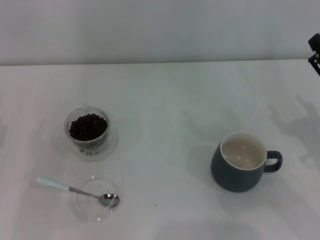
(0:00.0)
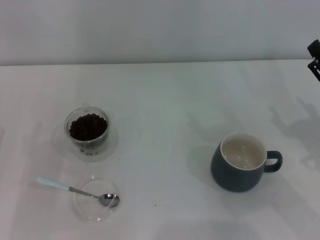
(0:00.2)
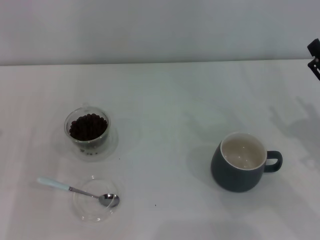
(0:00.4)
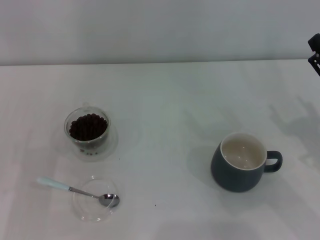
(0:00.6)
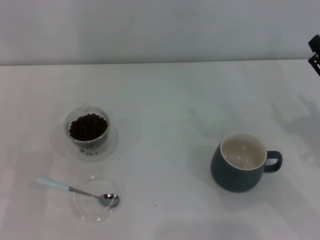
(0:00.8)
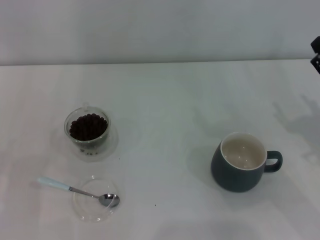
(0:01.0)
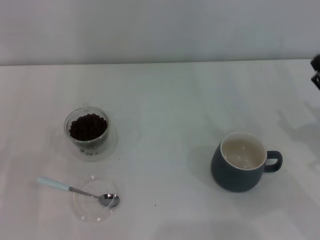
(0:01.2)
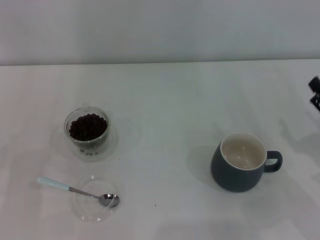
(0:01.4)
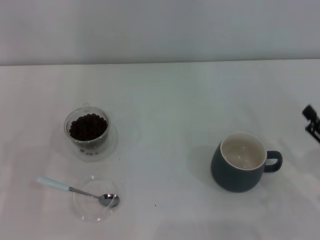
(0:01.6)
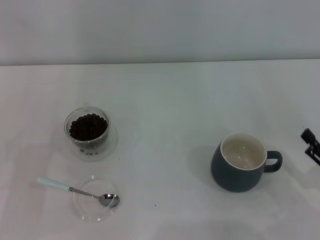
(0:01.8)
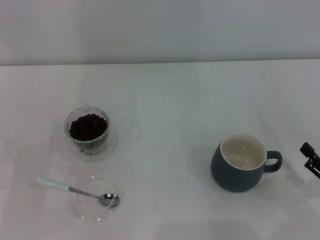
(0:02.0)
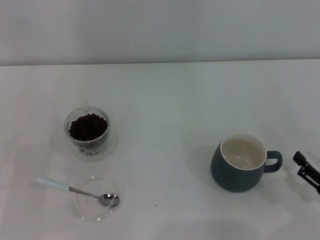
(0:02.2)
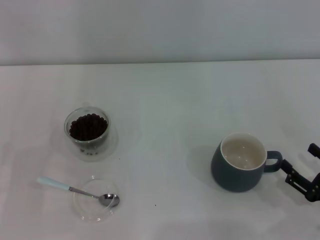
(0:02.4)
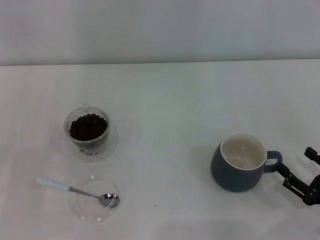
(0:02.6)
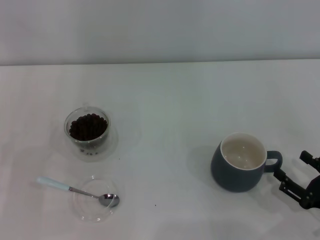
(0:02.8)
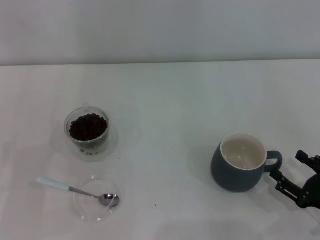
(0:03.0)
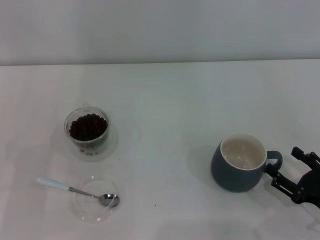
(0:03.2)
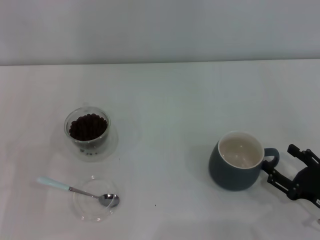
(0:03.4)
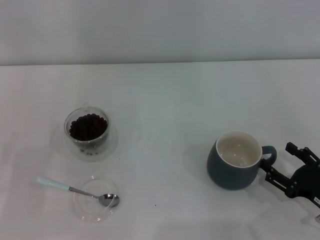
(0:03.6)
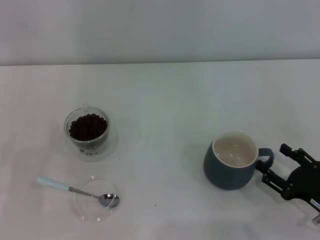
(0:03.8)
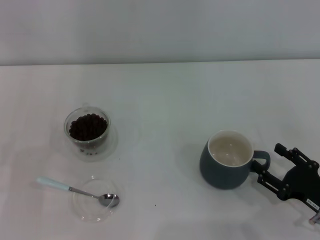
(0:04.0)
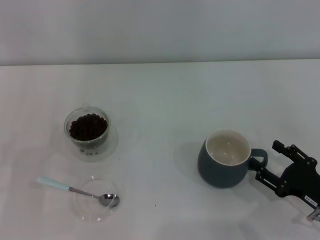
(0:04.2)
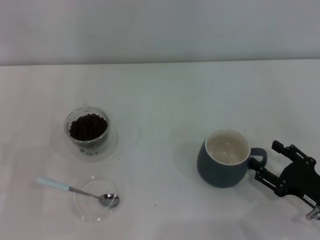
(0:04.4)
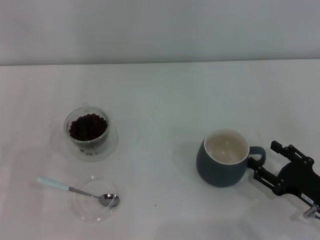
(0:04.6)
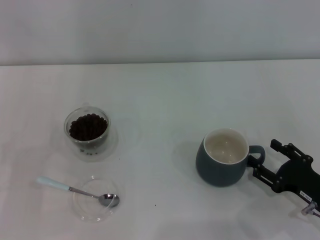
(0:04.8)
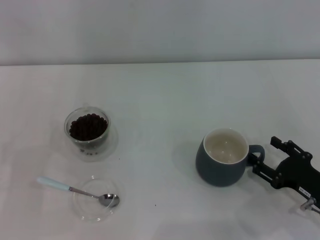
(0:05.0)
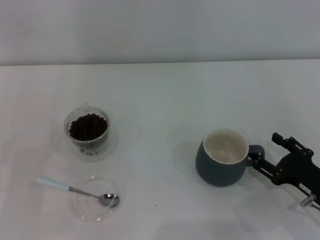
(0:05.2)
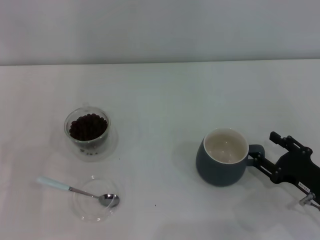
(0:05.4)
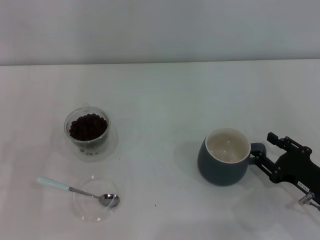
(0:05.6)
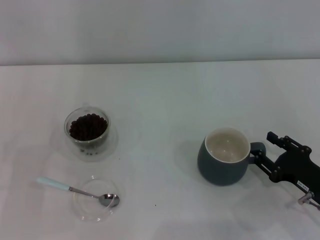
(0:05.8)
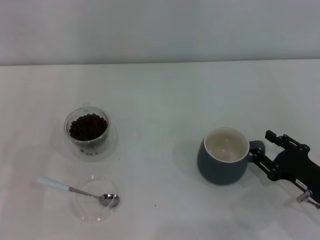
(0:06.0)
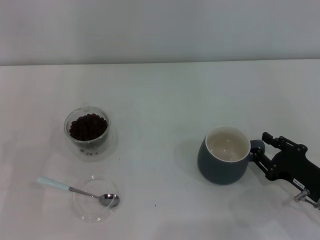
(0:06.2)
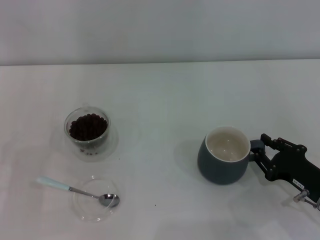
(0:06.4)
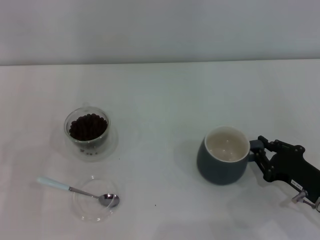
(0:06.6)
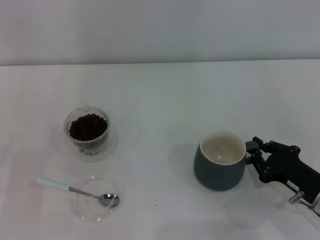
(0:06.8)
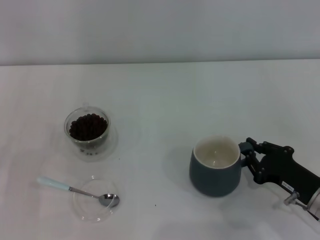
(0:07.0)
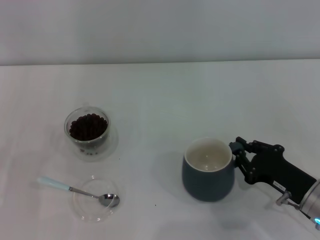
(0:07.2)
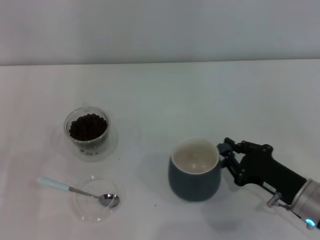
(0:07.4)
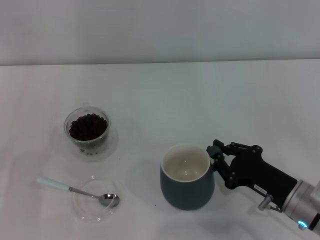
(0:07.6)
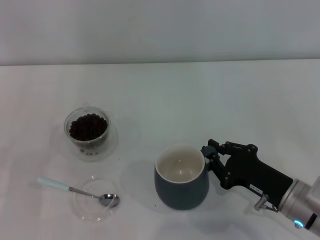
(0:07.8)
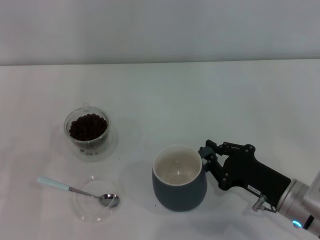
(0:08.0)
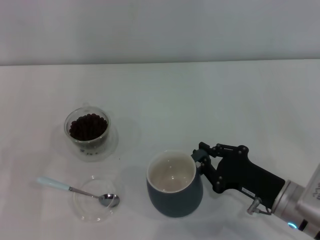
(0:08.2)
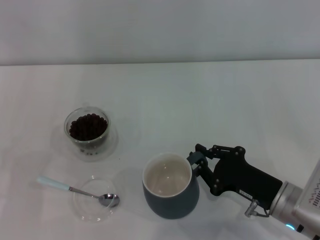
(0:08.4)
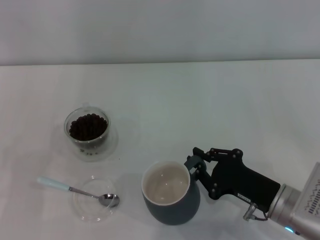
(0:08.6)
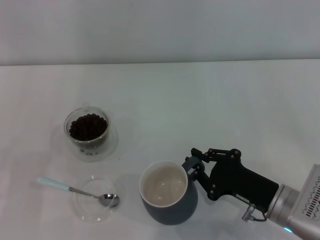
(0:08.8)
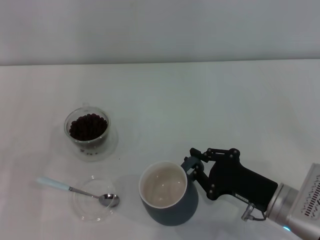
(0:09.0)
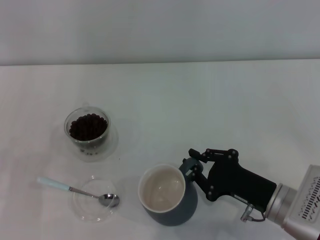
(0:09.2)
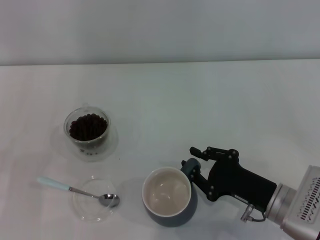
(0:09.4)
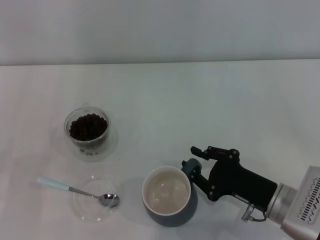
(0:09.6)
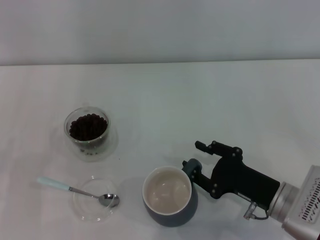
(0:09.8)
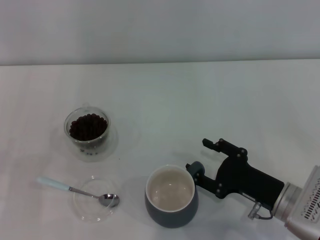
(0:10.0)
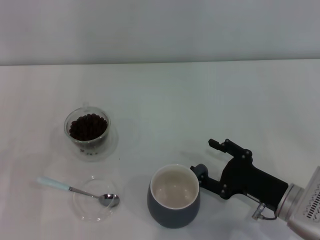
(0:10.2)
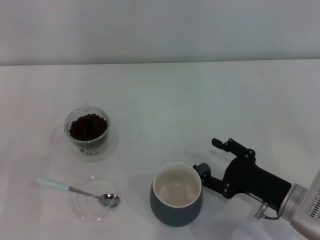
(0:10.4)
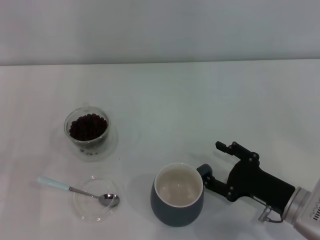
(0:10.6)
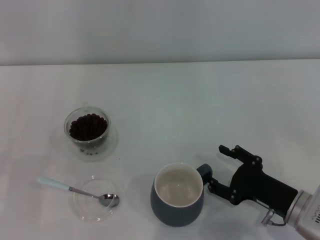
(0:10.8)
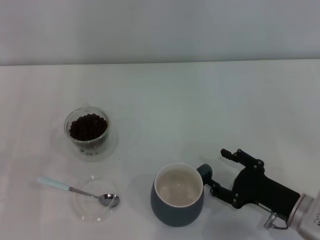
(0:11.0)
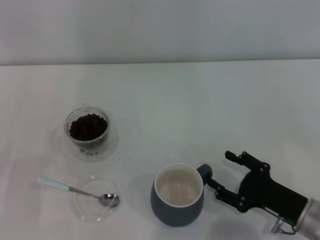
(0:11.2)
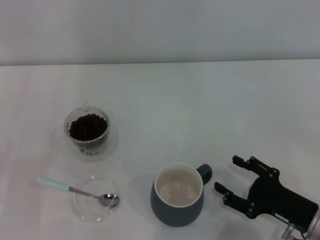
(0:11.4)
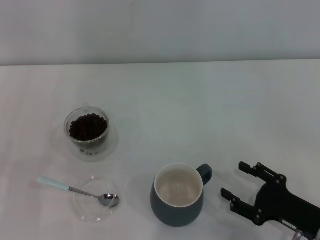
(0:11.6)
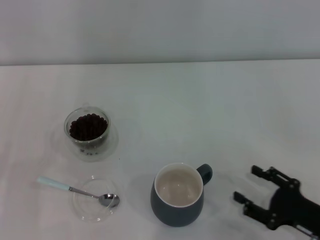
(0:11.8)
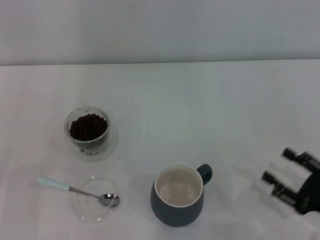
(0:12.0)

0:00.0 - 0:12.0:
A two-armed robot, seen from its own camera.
Task of the whole recording: Use a blue spoon to take out the coffee beans from the glass and pour them into the gray cup.
Step, 0:00.0 - 0:11.4: Move the cup to the center of view with the left gripper.
0:00.0 - 0:01.6: The right gripper moves backward, roughly 5 cm.
0:01.6 - 0:03.0: The right gripper changes place by roughly 5 cm.
0:03.0 - 0:06.0: There are only small adjustments of the grippers.
0:06.0 - 0:07.6: The right gripper moves to the left, some 5 cm, and closes its fingers.
0:07.6 - 0:09.0: The grippers move only a little.
0:09.0 - 0:10.4: The right gripper opens up.
0:10.4 - 0:12.0: The right gripper travels to the right and backward by roughly 10 cm.

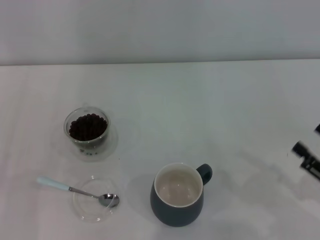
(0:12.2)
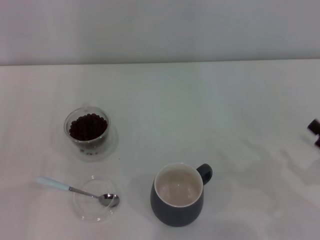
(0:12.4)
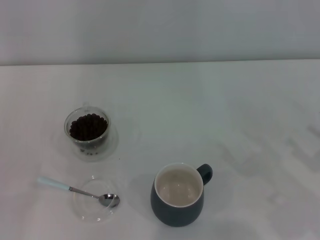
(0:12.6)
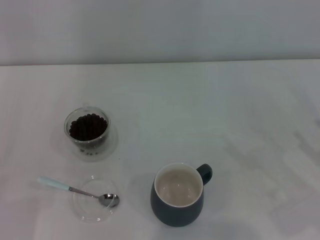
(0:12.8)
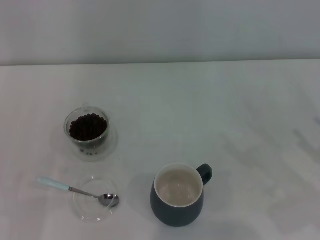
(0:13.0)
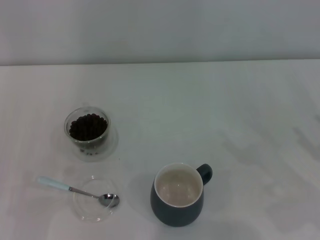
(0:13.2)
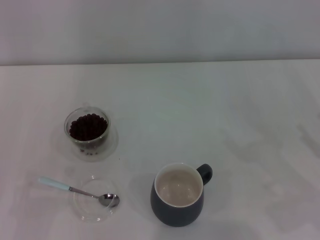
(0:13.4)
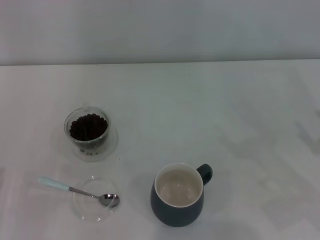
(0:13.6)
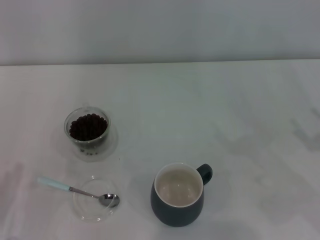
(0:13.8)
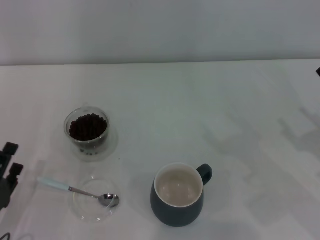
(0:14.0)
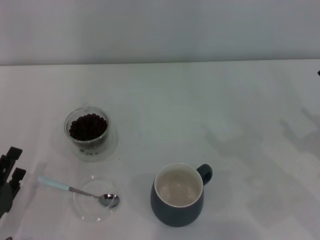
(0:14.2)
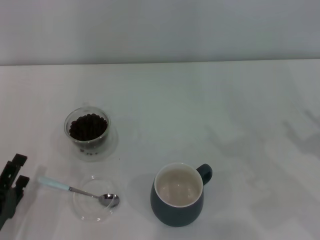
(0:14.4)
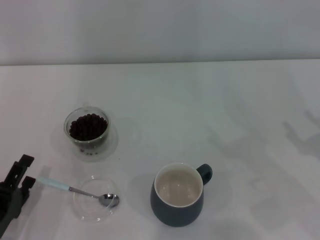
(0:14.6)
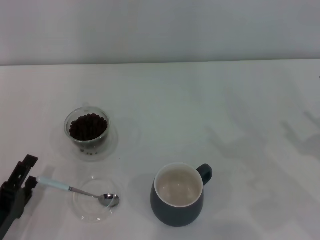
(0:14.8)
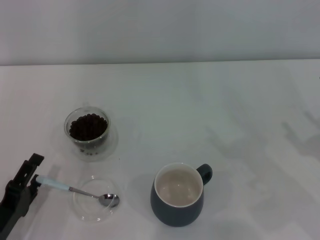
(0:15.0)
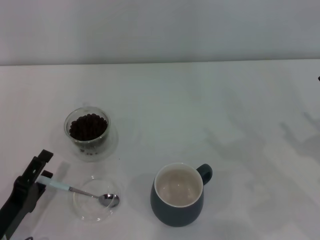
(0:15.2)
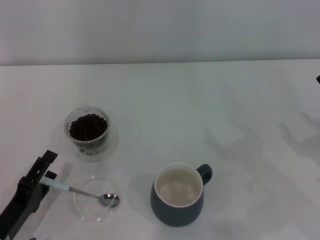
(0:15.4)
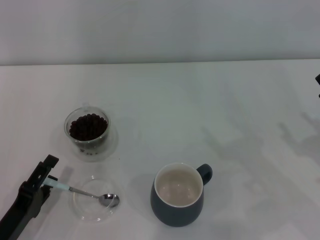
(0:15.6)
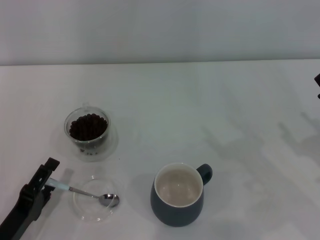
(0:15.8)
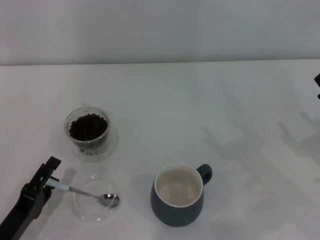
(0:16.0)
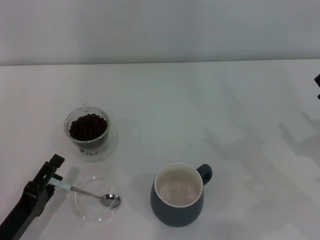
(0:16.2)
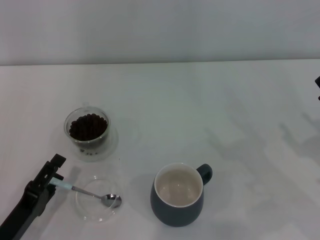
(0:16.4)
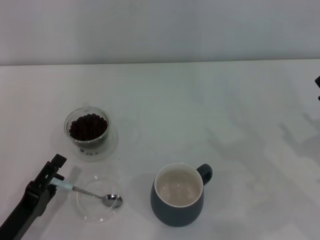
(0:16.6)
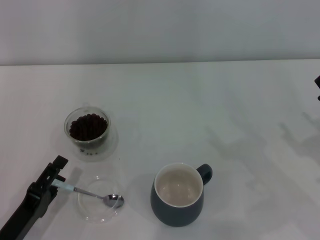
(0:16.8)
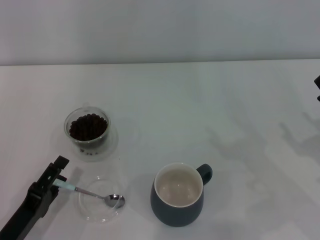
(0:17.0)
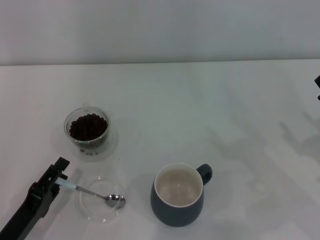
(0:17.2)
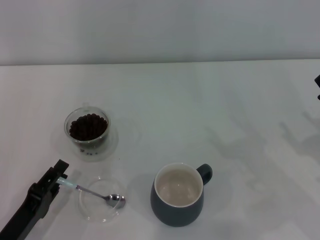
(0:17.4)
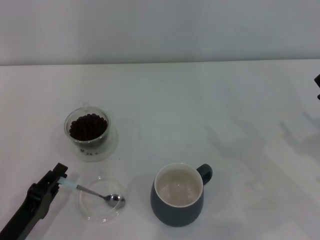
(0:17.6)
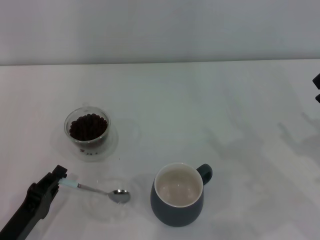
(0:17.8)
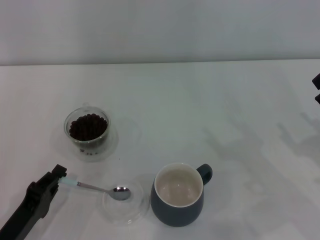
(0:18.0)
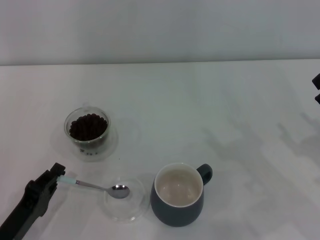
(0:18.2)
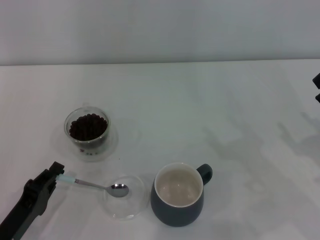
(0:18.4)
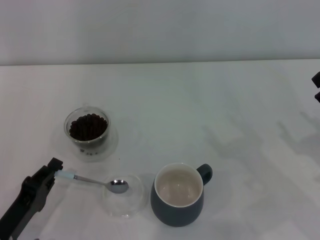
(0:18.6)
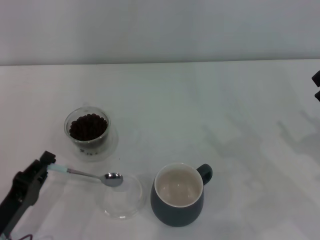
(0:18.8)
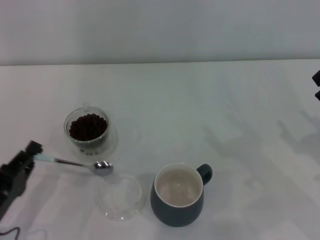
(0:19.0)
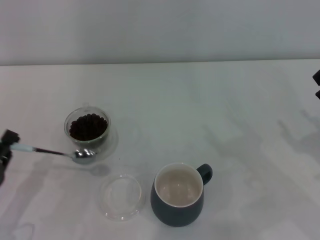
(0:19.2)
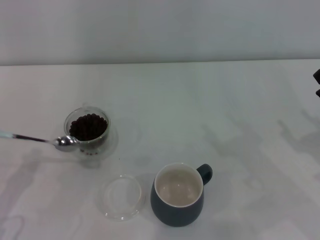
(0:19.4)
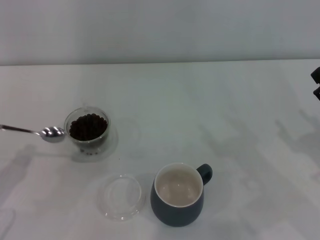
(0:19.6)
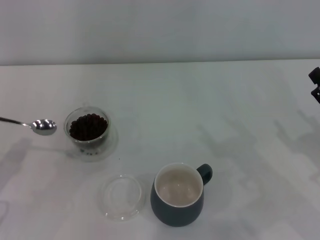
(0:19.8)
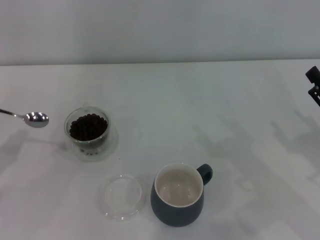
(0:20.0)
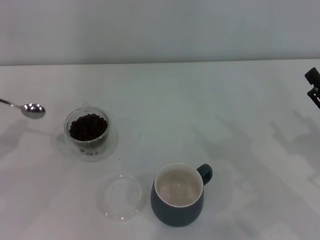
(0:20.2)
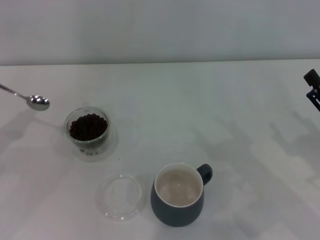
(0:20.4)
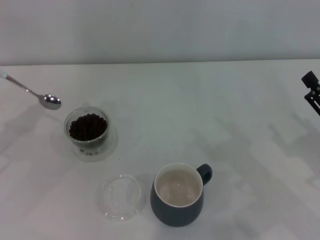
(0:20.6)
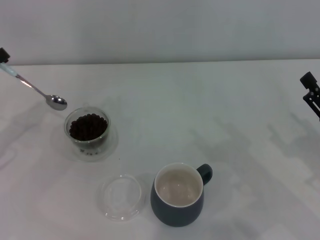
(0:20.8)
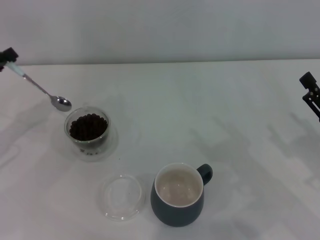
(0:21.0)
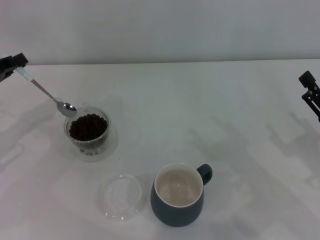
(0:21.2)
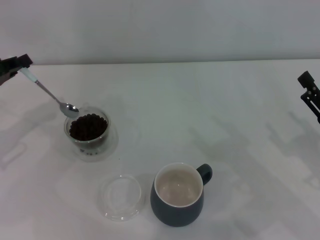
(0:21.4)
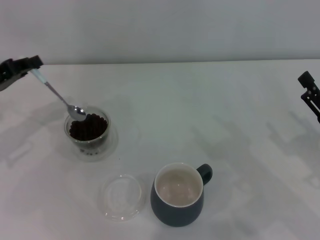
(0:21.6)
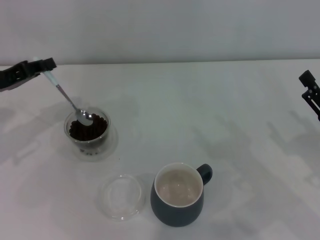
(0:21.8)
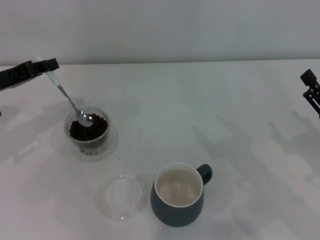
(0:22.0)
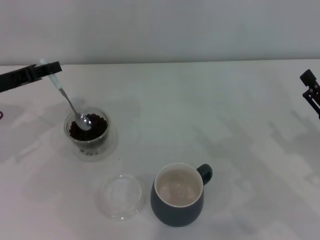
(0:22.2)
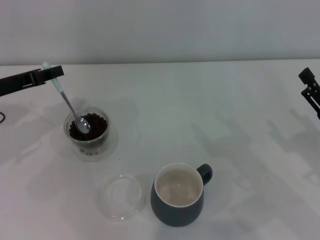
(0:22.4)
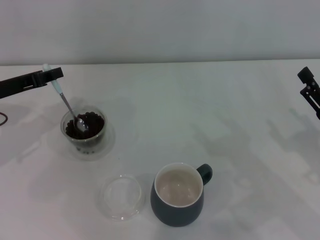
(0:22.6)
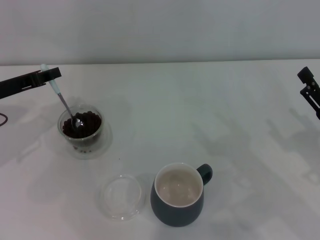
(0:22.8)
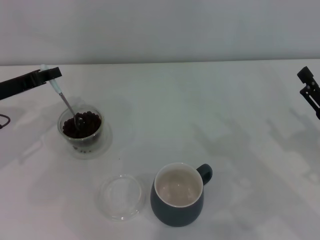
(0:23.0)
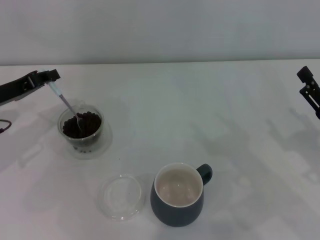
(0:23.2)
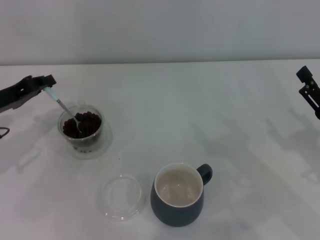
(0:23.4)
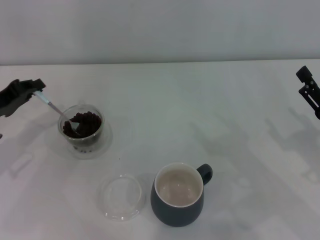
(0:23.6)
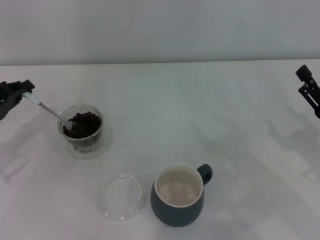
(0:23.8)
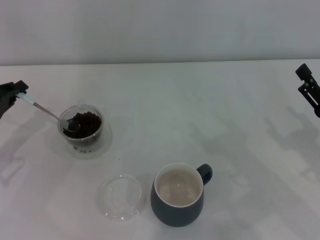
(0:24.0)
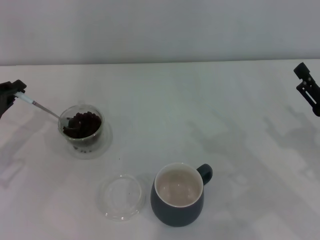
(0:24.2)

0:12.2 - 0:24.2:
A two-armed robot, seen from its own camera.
Task of the whole recording: Use a blue spoon to take out the coffee beans from the glass and pour them into the gray cup.
Step, 0:12.2 - 0:18.8: Pick up the spoon with the right gripper.
0:12.2 - 0:13.8: The right gripper heads forward, covering roughly 5 cm.
0:13.8 - 0:15.2: The grippers move only a little.
0:15.2 - 0:16.6: The two grippers keep their place.
0:16.6 - 0:18.2: The left gripper closes its fingers.
0:18.2 - 0:19.8: The left gripper is displaced to the left and upward by some 10 cm.
0:19.8 - 0:21.2: The left gripper heads forward and upward, covering some 15 cm.
0:21.2 - 0:22.6: The left gripper ends up roughly 5 cm from where it was.
0:22.6 - 0:24.2: The left gripper heads backward, covering approximately 5 cm.
